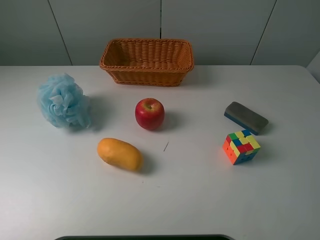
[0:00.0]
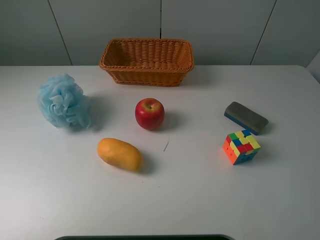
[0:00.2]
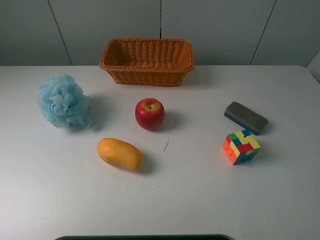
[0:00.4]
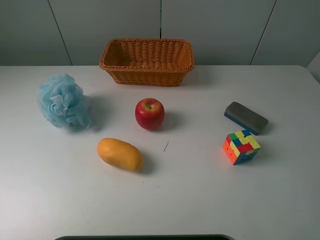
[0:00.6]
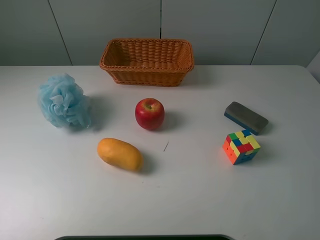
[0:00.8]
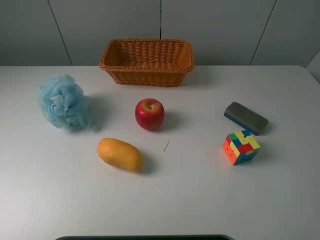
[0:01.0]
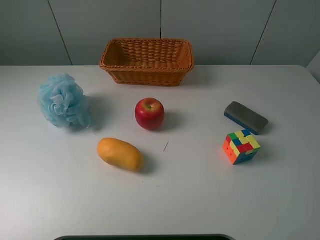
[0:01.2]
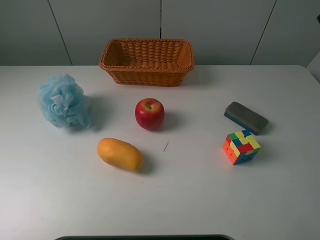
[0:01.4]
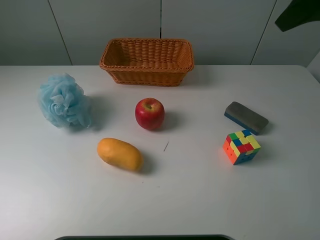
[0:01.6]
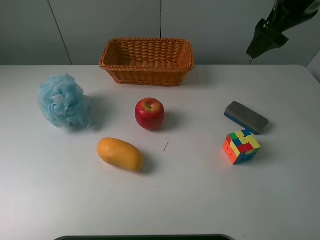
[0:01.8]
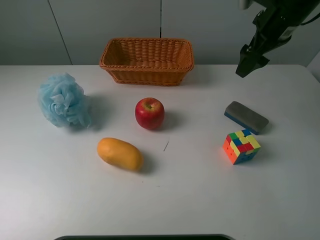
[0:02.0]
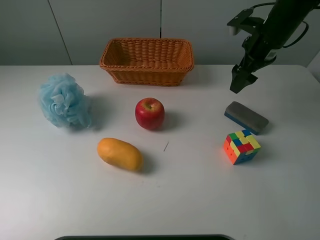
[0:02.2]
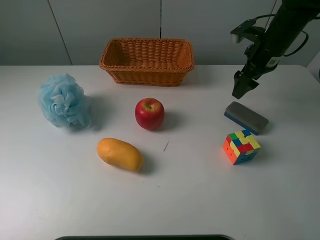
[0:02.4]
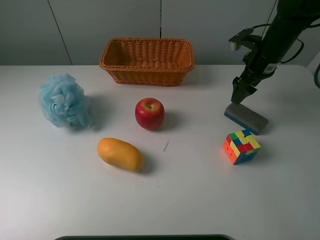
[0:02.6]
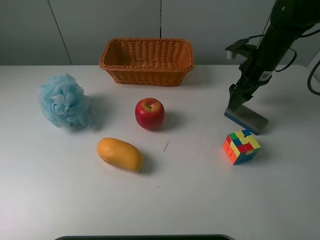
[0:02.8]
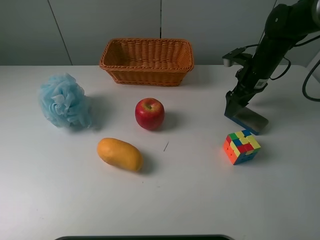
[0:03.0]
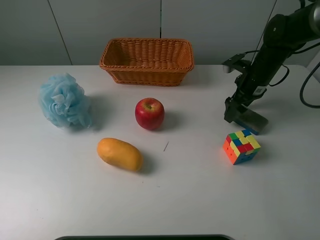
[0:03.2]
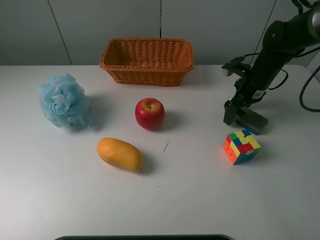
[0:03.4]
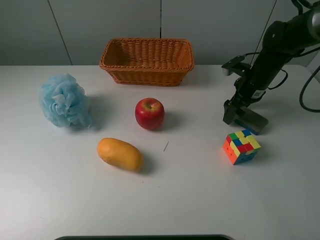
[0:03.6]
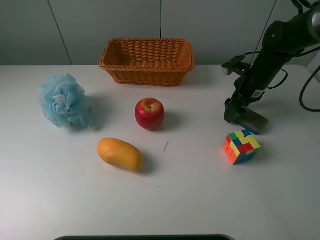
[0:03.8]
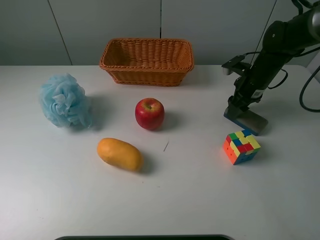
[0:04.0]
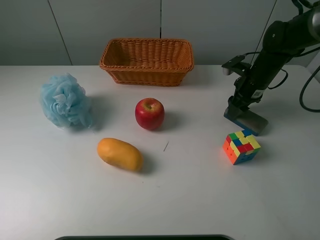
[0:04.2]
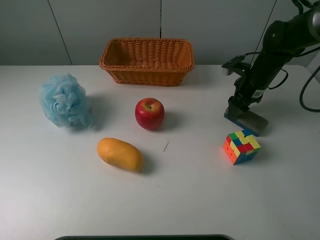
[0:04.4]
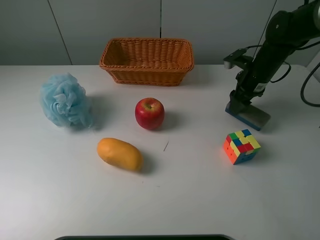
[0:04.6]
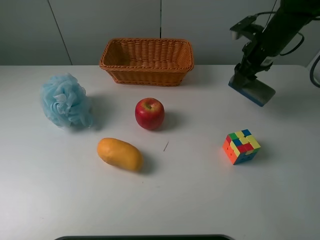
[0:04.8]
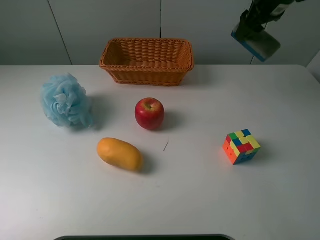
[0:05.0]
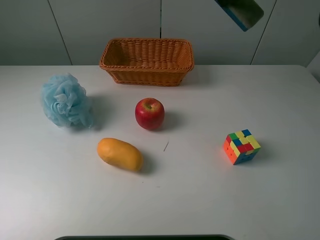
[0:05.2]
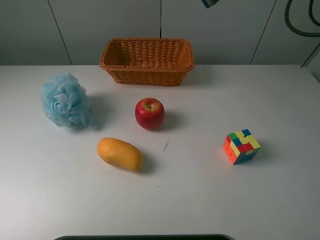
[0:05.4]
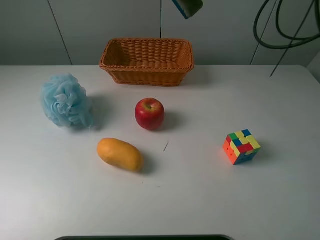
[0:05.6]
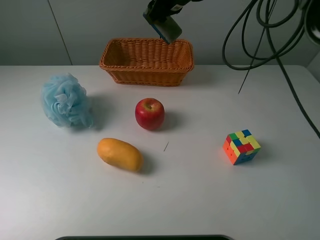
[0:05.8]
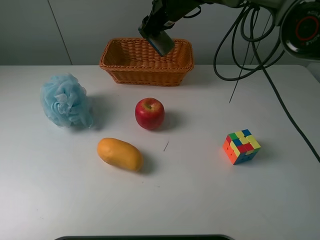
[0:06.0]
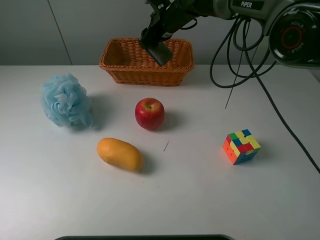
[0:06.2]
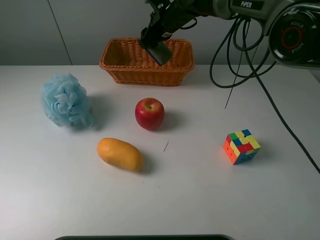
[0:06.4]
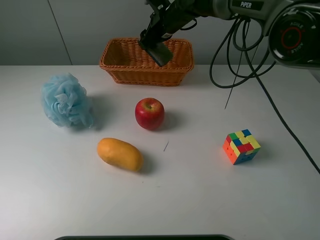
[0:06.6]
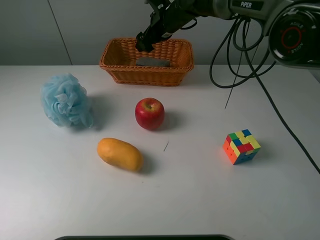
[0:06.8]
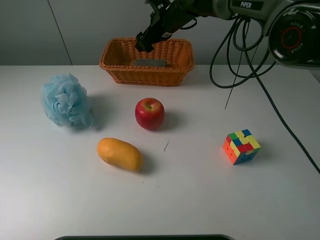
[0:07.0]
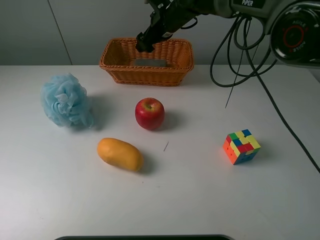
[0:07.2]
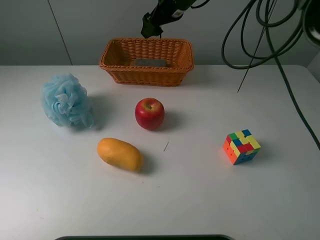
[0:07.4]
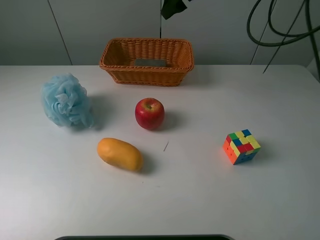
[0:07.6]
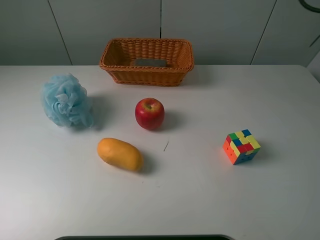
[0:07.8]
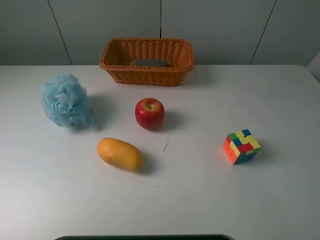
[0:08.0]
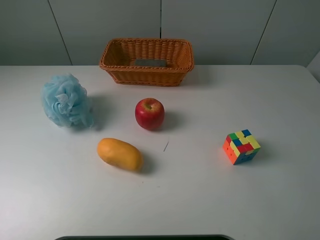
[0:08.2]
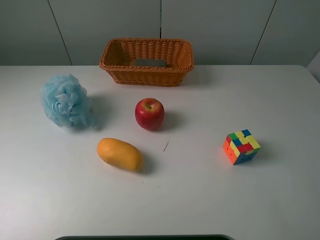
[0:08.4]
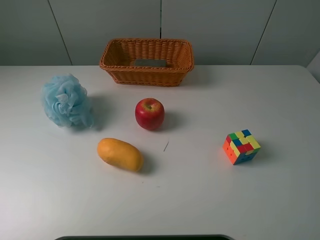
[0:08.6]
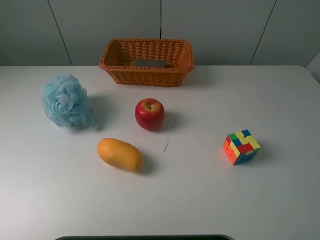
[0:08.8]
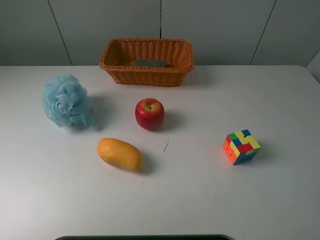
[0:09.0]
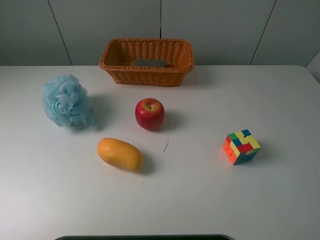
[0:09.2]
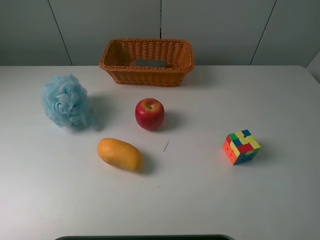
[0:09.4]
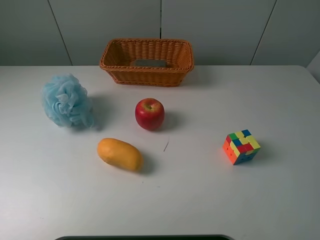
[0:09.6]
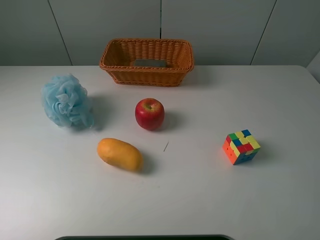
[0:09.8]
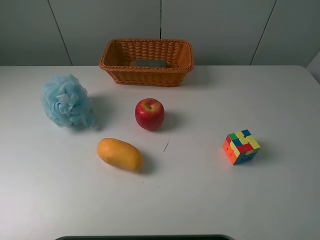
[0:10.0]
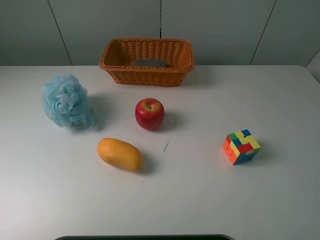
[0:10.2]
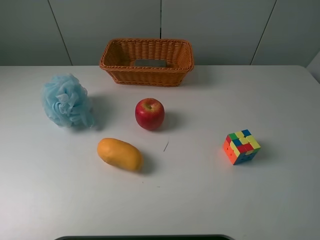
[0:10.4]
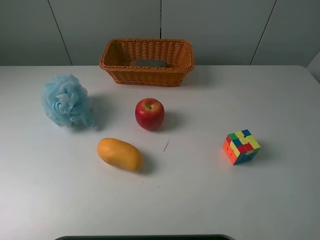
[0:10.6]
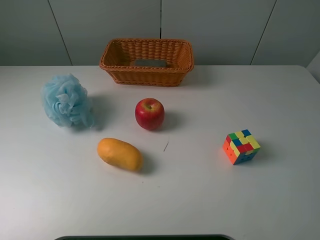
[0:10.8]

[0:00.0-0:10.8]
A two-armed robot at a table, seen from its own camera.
Task of the whole recording: use a picker to grab the item closest to the cube and place it in the basket.
Step, 0:00.0 to 0:04.0: Grasp the blackboard erasure with the right gripper.
Step, 0:04.2 to 0:06.8: Place the blackboard erasure into the basket with the right gripper.
0:00.0 to 0:01.6: The right gripper goes roughly 30 cm forward.
0:01.6 to 0:03.0: The right gripper heads downward and forward, covering some 25 cm.
0:03.0 to 0:04.6: The right gripper closes.
0:04.6 to 0:06.2: The right gripper goes roughly 25 cm to the left and forward, and travels upward and back again, approximately 20 cm each way.
0:06.2 to 0:07.8: The right gripper is displaced upward and to the right by about 25 cm, and opens.
